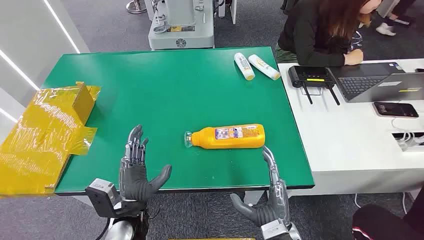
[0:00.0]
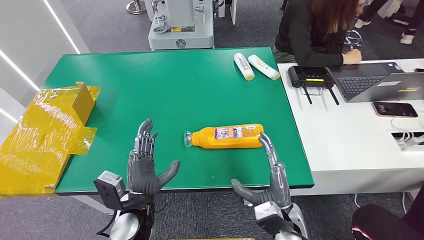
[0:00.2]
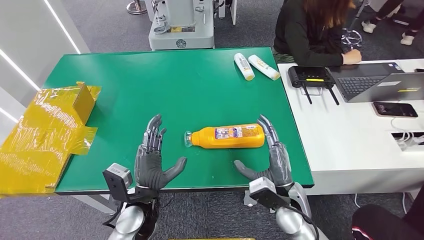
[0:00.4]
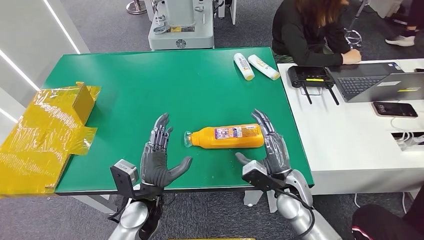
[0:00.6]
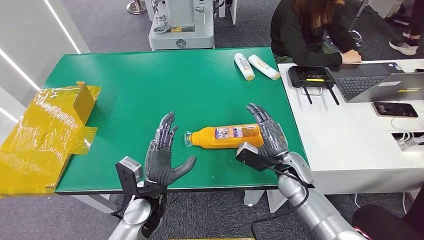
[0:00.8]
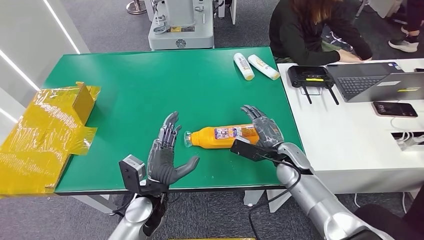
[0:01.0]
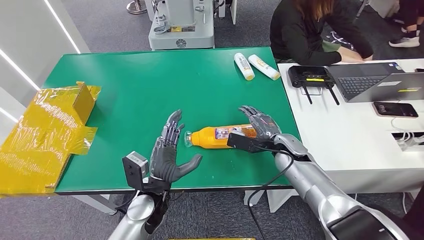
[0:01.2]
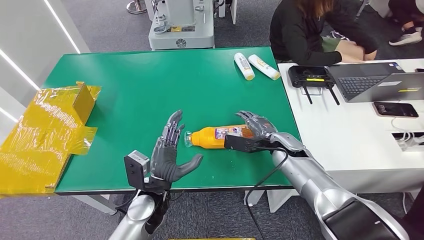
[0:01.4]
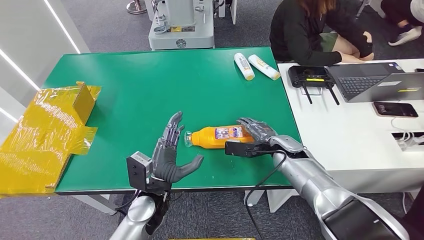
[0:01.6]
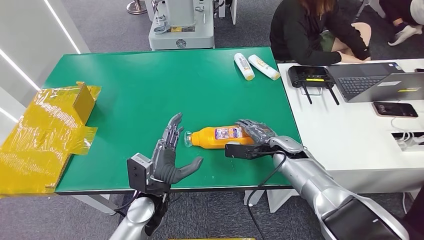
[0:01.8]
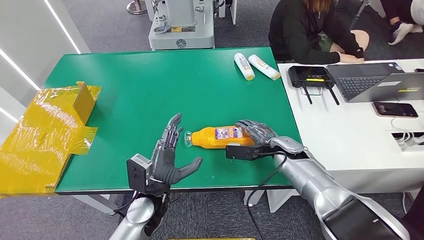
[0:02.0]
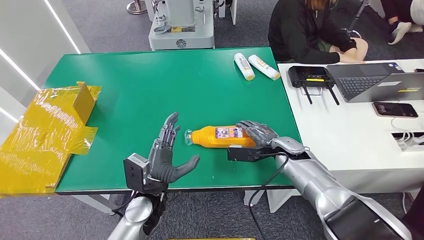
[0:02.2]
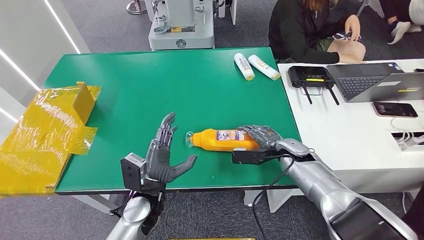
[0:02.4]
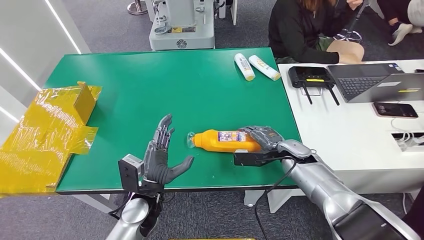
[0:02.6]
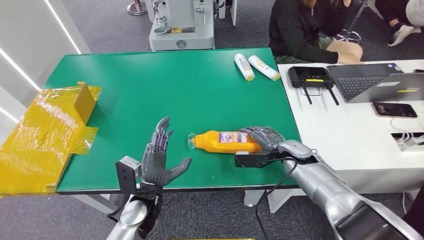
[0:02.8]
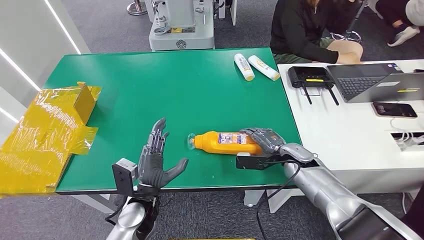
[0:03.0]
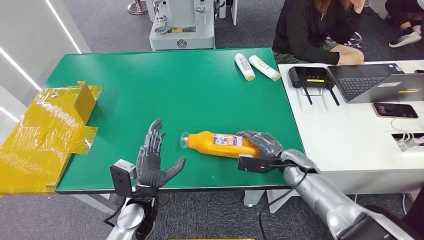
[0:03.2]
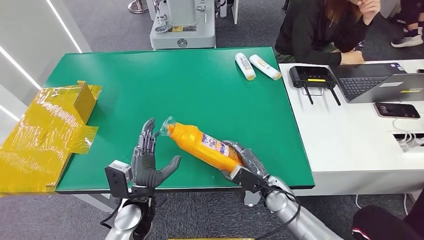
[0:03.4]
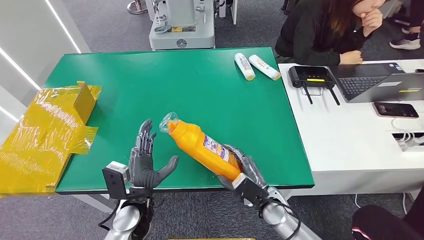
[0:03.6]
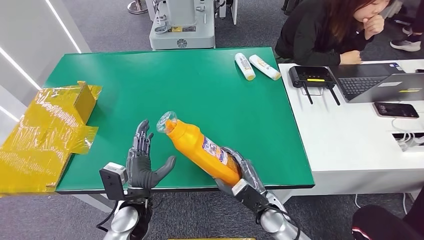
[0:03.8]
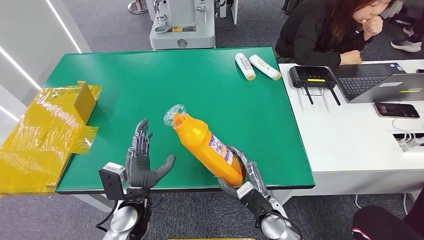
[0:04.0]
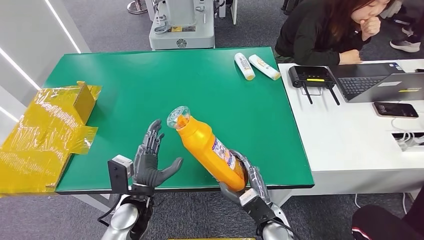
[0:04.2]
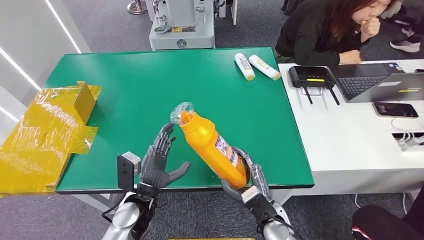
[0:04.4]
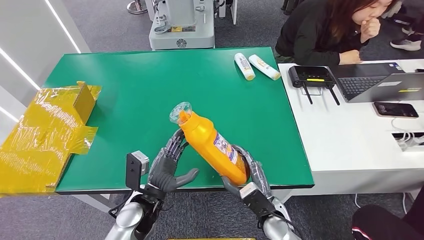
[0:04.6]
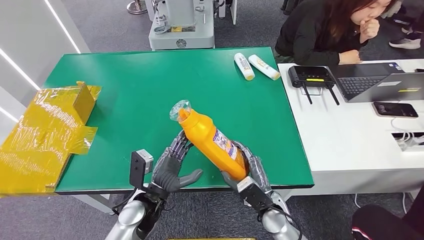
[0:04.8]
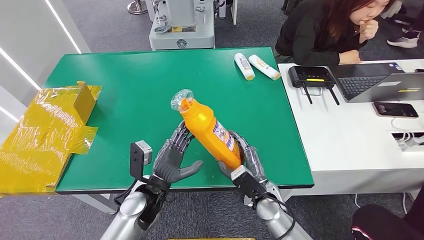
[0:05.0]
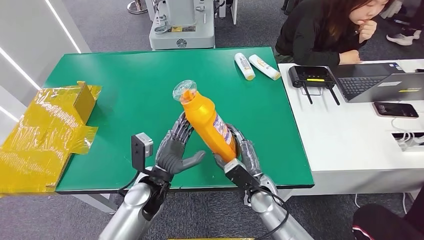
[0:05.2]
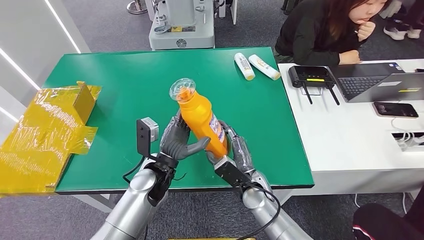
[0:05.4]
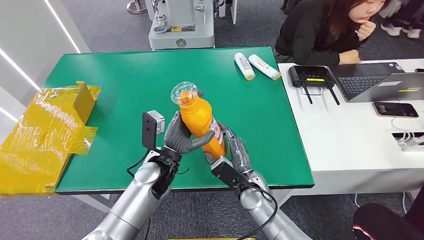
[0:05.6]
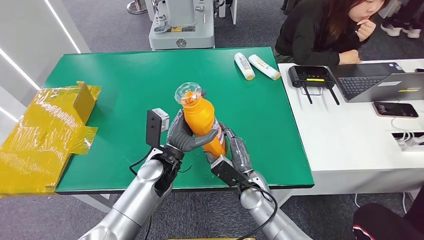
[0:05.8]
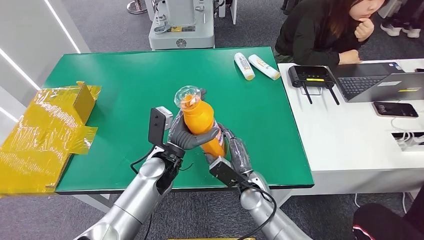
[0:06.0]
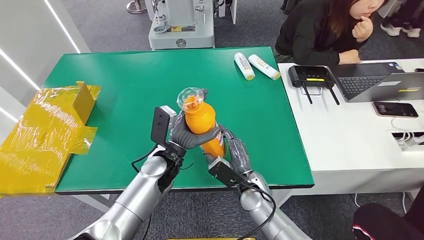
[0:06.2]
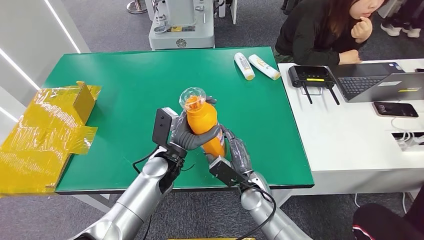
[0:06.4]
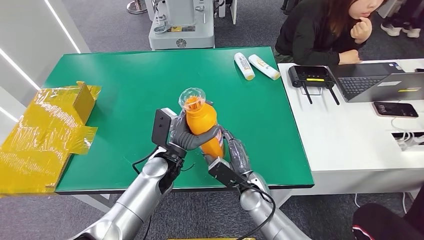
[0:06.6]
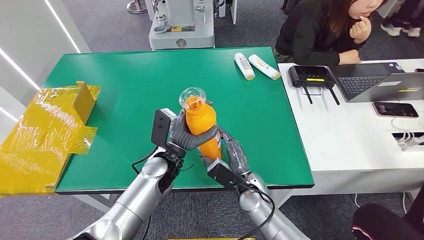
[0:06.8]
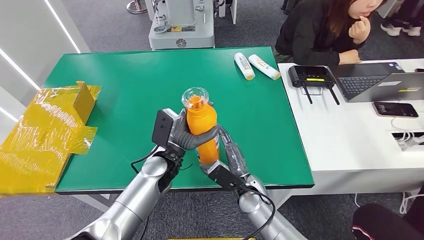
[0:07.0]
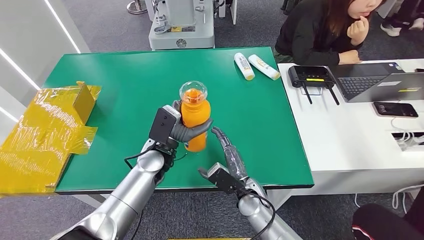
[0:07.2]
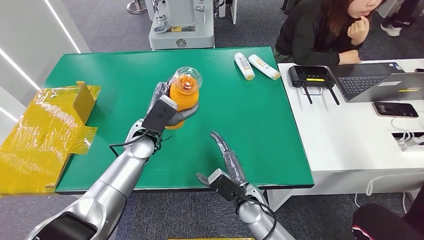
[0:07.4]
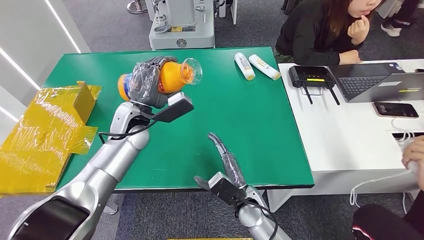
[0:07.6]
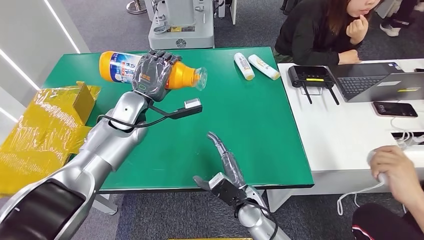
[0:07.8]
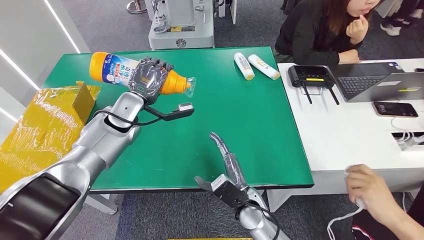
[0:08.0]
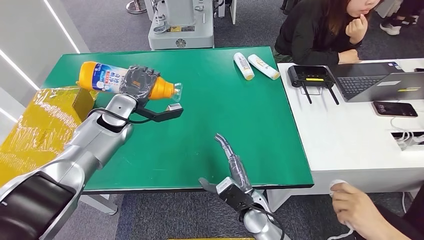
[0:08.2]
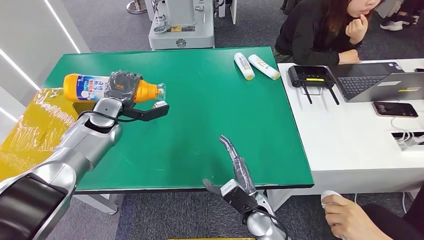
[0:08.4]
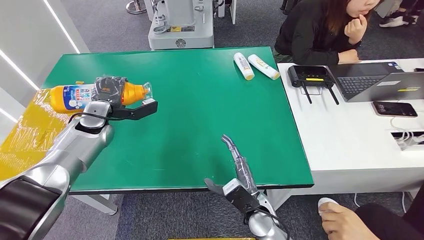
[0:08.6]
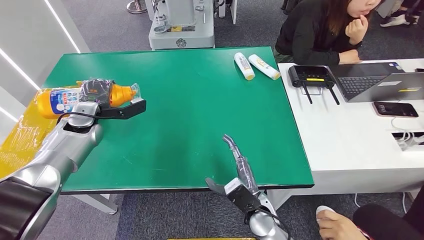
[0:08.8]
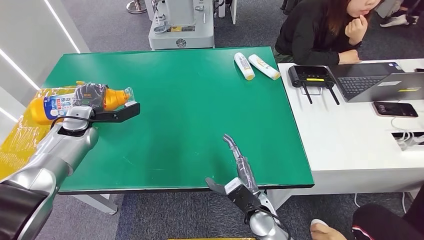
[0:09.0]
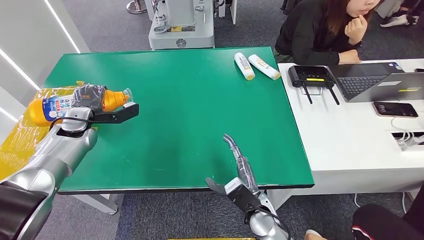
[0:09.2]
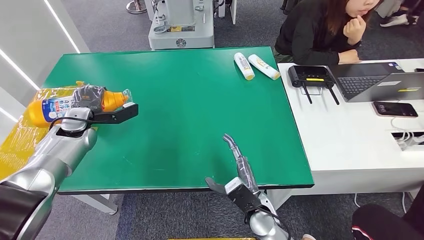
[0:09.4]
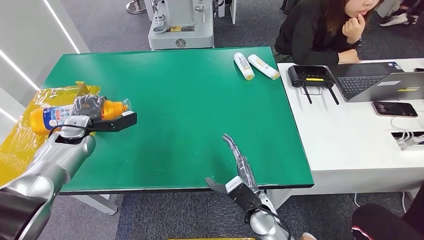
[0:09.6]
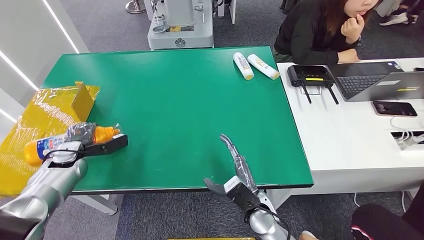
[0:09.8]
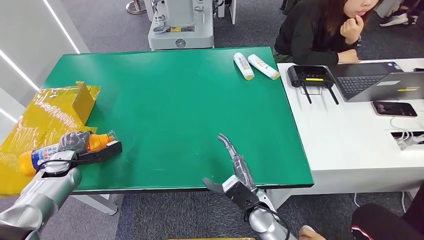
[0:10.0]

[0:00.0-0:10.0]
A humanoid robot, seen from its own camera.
Step, 0:00.0 to 0:06.8: Pick up the bottle from the table.
0:01.4 to 0:02.8: The right hand ends up approximately 5 cm from where it was.
0:04.2 to 0:05.8: The right hand is displaced forward by roughly 10 cm. Meanwhile the left hand is displaced forward, to the right and upward by about 10 cm.
0:08.6 to 0:10.0: The left hand moves to the left, downward and backward, approximately 20 cm.

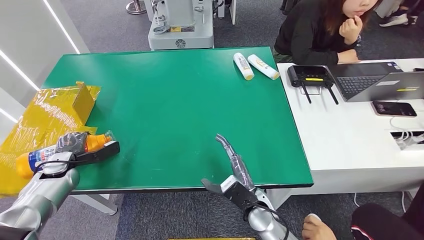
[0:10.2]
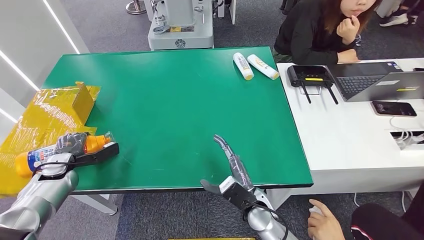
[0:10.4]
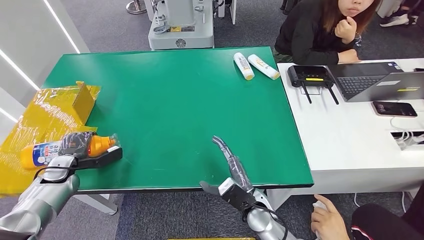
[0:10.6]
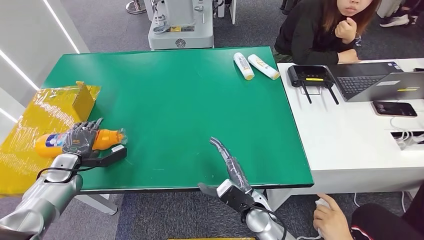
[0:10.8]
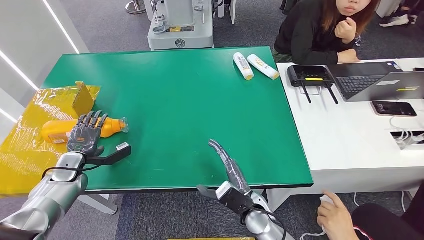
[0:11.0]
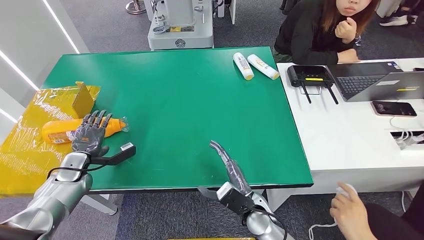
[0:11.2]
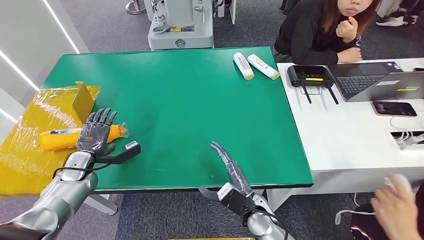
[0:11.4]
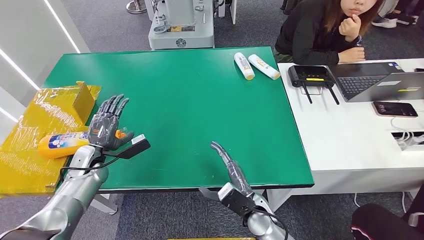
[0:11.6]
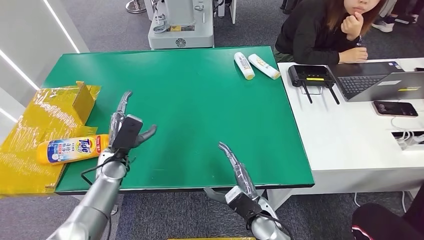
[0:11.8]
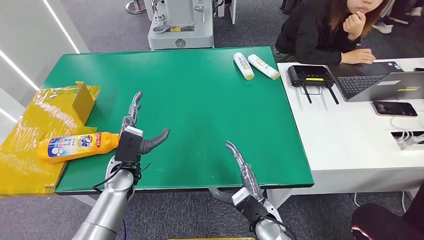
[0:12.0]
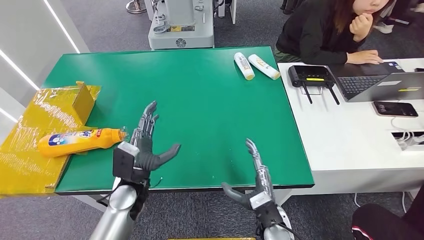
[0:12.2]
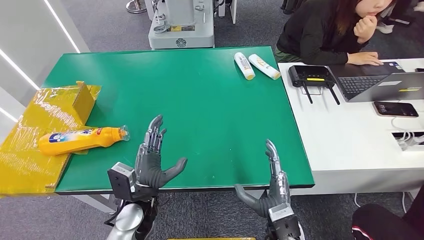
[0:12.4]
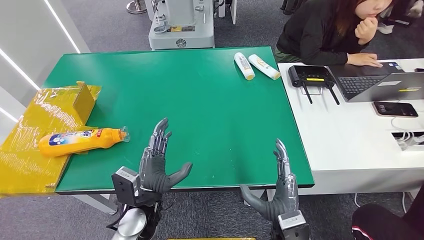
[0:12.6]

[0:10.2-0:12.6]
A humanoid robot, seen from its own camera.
Step, 0:10.2 to 0:12.6: Turn the bottle to the front side.
0:10.2 to 0:11.4: The left hand heads to the right, covering roughly 5 cm.

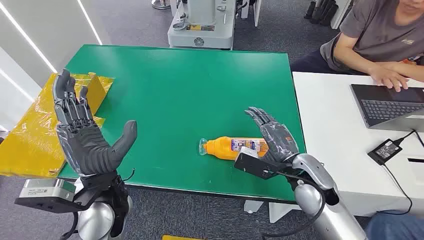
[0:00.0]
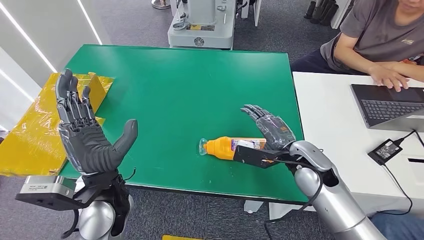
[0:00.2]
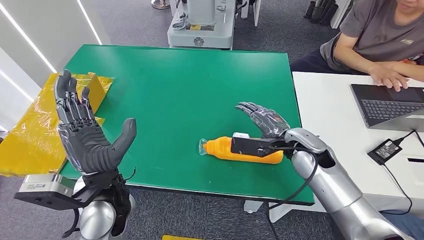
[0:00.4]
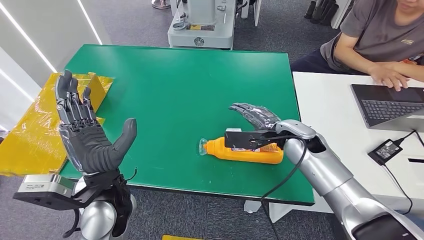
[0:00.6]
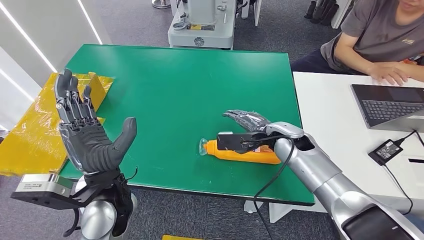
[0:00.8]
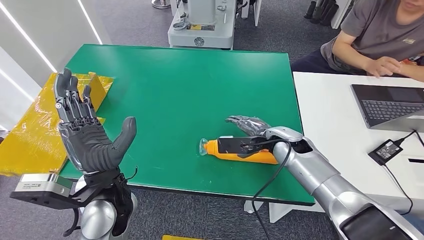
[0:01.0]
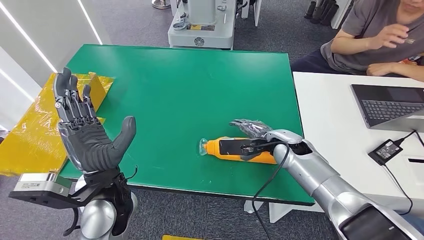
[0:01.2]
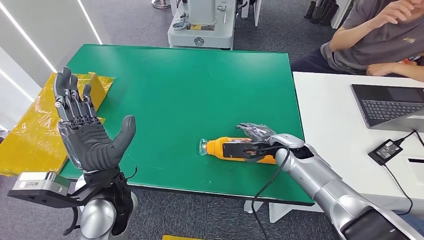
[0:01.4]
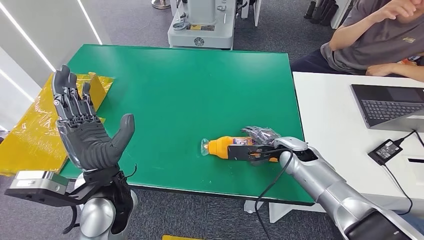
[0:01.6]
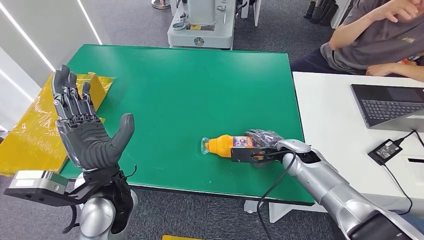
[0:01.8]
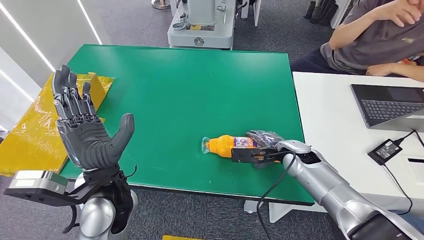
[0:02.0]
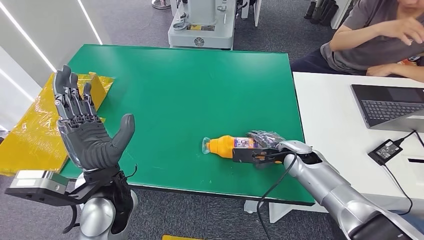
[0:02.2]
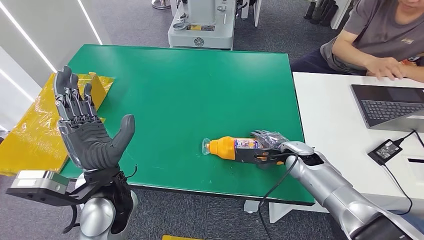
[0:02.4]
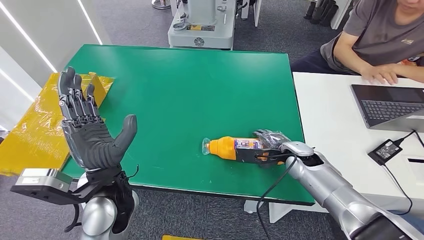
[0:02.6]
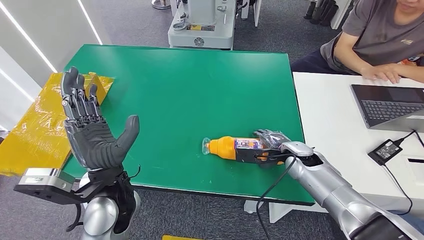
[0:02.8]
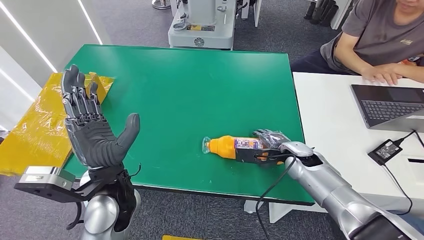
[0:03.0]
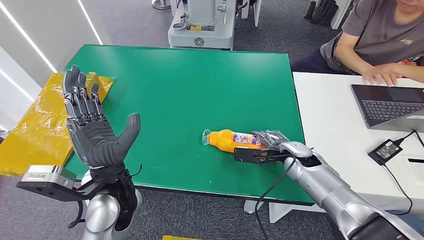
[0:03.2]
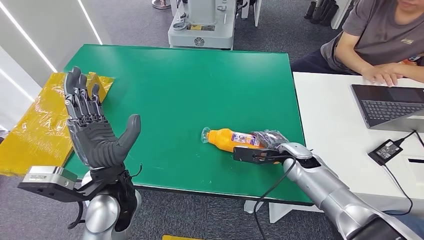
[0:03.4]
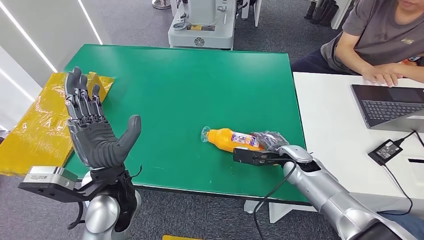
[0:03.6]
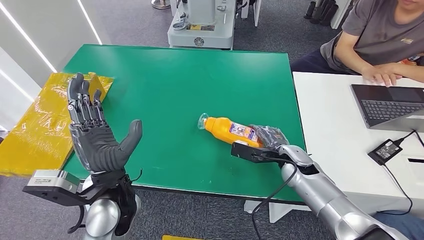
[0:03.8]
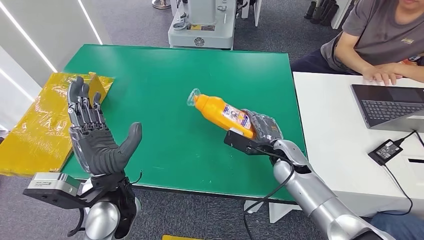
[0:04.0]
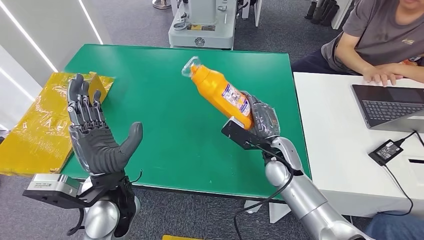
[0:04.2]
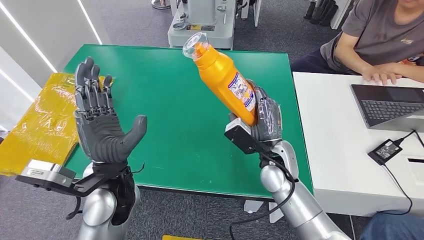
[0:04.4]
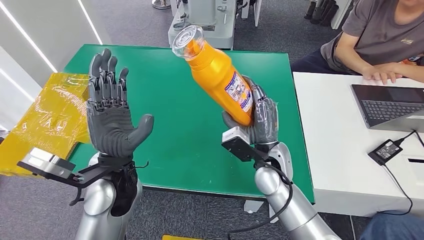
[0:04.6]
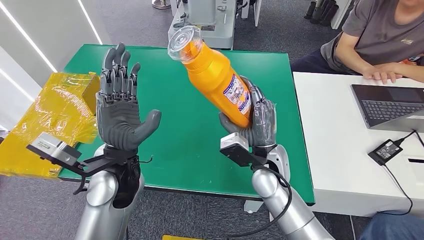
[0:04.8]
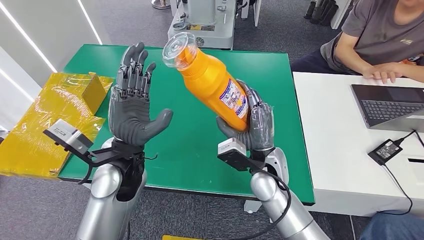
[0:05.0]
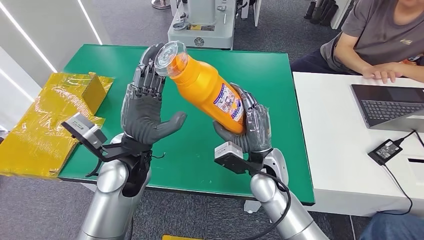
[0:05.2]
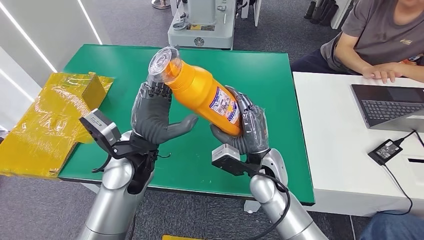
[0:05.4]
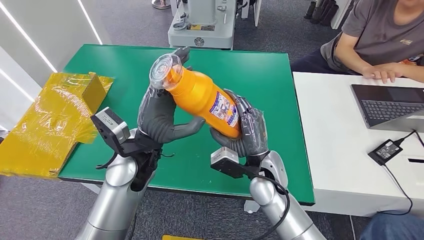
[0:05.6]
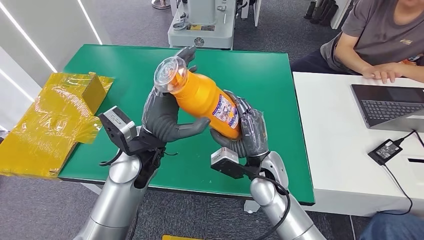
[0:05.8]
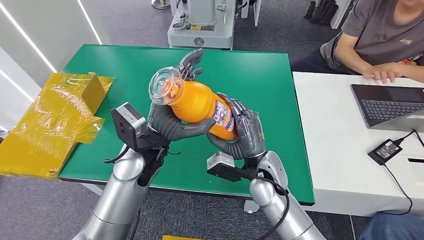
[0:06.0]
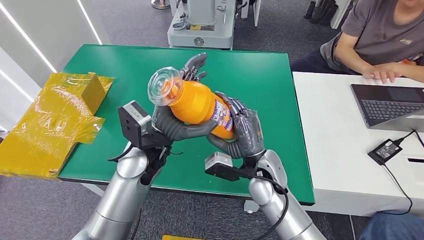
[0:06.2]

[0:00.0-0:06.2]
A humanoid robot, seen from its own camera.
Step, 0:00.0 to 0:04.6: Pick up the bottle from the table.
0:01.6 to 0:03.2: There are only small adjustments of the hands.
